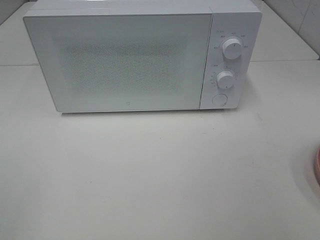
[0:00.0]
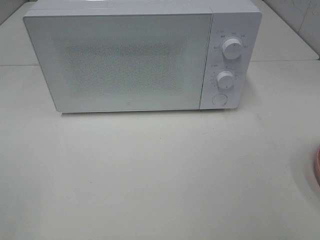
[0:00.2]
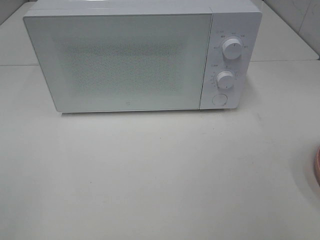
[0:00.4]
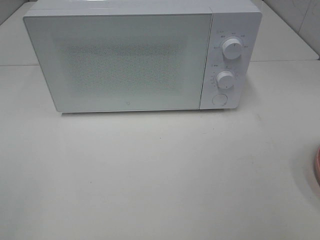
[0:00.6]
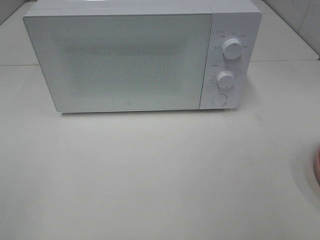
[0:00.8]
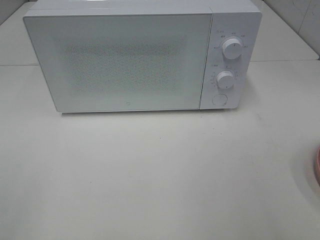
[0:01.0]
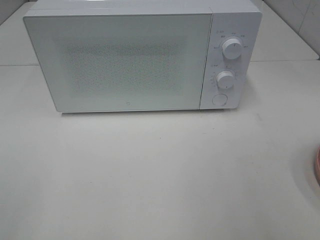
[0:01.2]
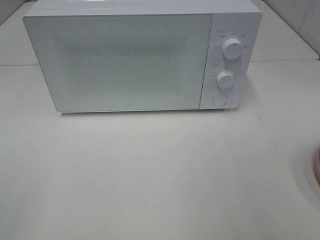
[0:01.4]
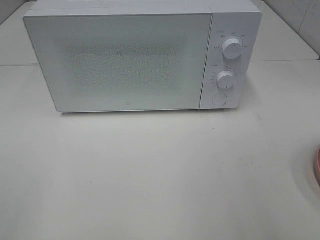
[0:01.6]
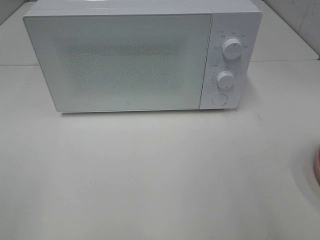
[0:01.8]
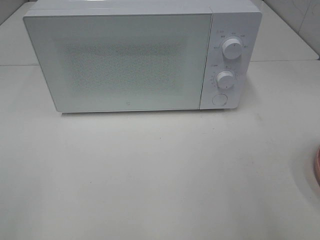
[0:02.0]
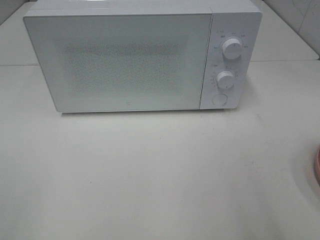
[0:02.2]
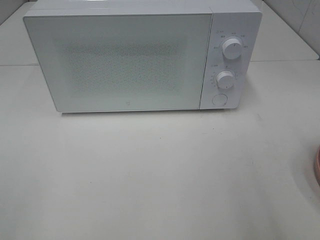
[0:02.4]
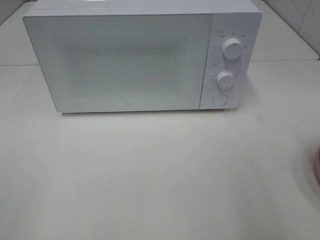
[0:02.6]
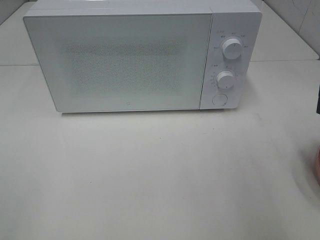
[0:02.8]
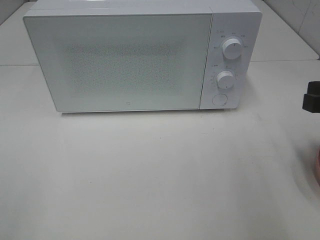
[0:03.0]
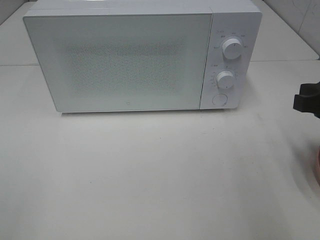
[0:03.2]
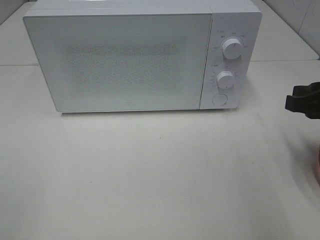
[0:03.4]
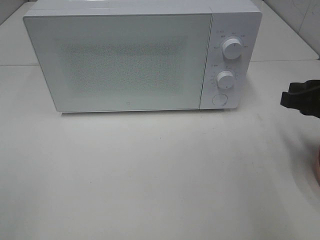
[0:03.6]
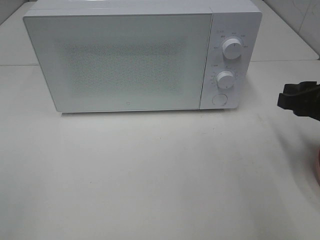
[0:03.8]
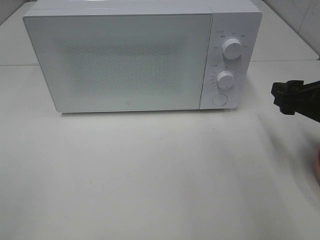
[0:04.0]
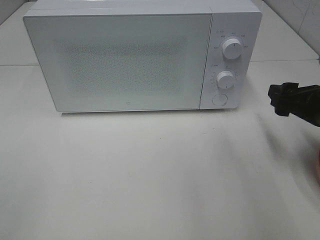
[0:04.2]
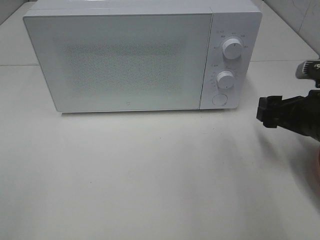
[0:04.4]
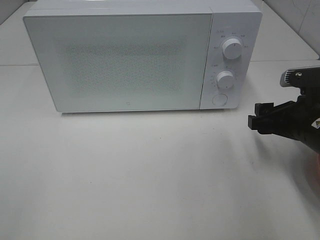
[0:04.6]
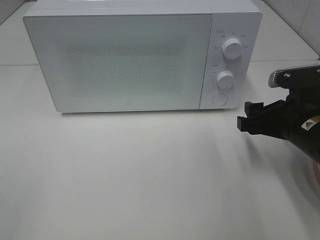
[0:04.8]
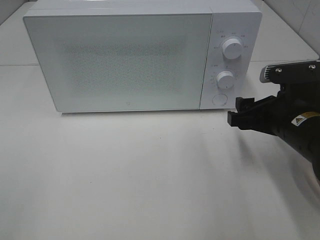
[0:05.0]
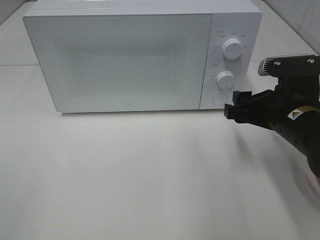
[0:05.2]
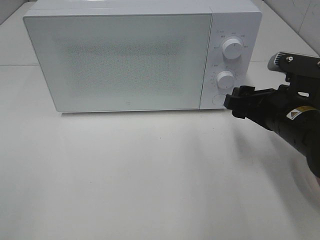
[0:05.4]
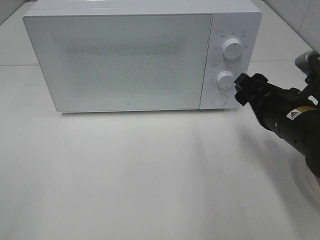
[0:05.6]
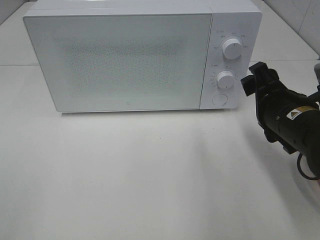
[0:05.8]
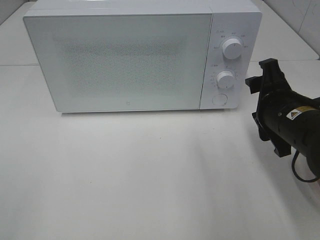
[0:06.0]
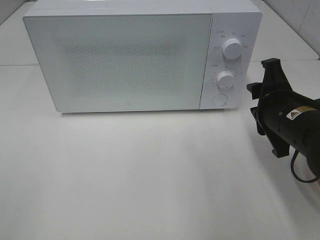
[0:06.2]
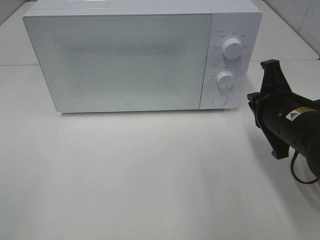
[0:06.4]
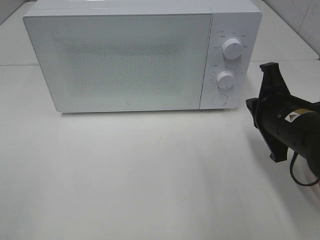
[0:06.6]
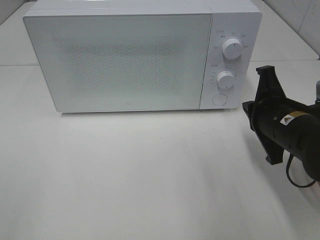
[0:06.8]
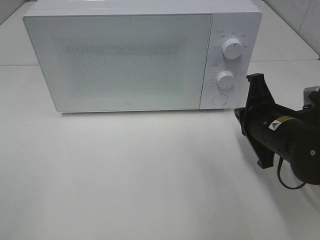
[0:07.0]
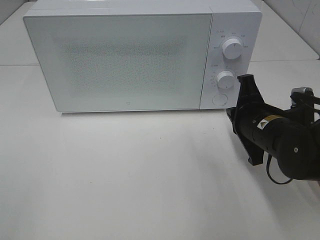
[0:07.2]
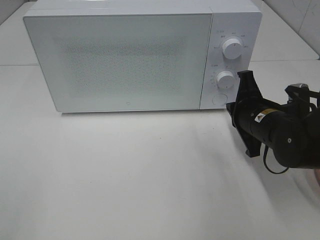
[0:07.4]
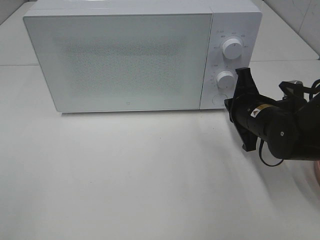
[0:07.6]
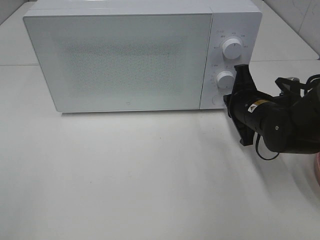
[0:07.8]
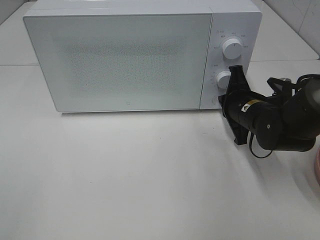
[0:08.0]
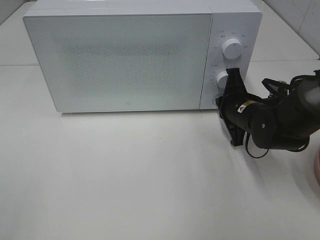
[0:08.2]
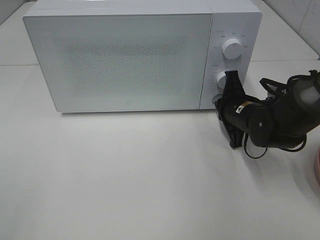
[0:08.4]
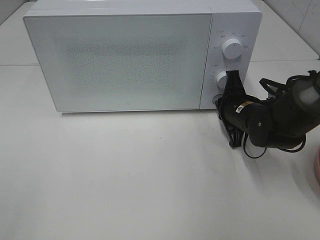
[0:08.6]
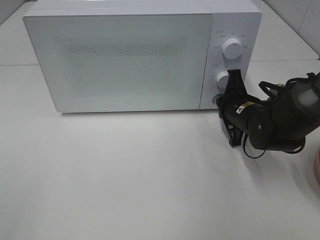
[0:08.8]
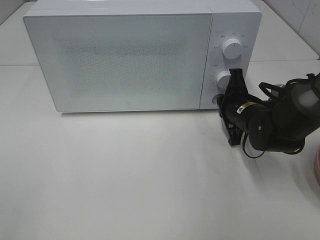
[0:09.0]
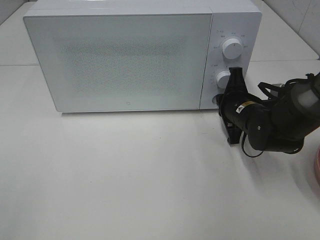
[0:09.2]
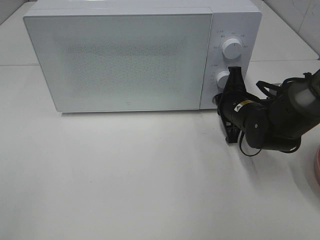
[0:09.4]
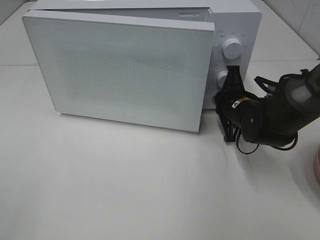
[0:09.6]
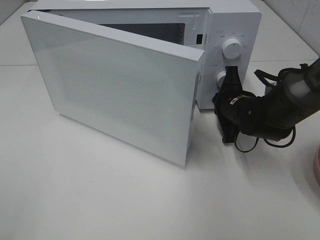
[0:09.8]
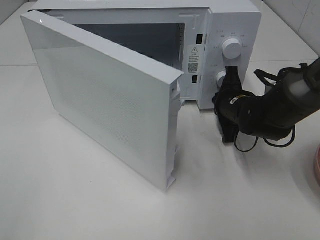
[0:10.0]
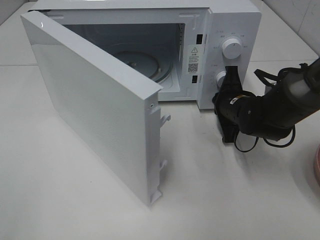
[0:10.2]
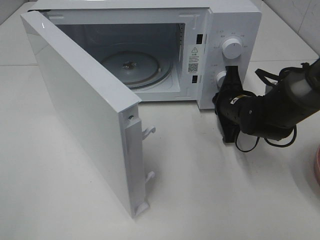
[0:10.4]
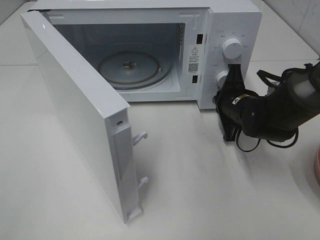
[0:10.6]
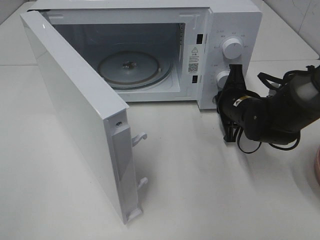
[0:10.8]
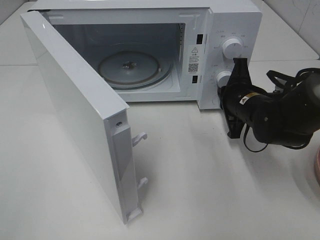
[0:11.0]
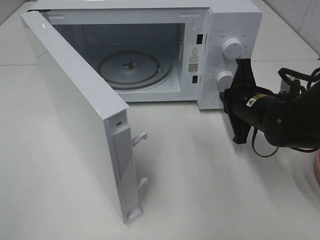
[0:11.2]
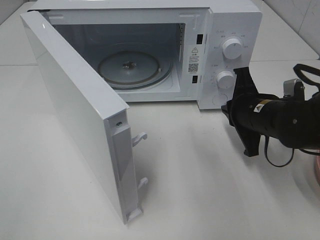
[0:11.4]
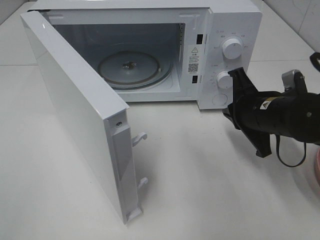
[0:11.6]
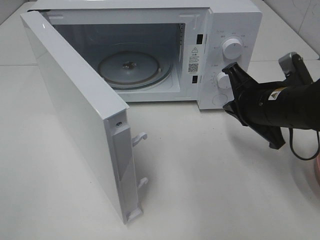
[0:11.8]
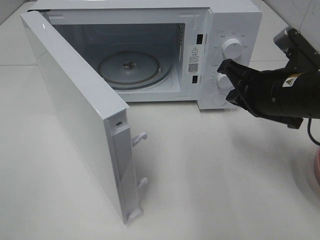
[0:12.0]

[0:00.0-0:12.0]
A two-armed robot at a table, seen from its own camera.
Task of the whole recording: Heat the burger.
Step, 0:00.0 to 0:10.8: Right hand: press the switch.
0:01.6 to 0:03.0: The right gripper travels forward and downward by approximately 20 cm.
0:03.0 to 0:04.4: The right gripper goes about 10 cm downward and forward, and opens its fingers.
0:04.4 to 0:06.0: The right gripper heads to the left, covering about 5 cm.
0:06.0 to 0:07.6: The right gripper travels forward and downward by about 10 cm, and closes its fingers.
0:07.6 to 0:09.0: The grippers move only a little.
0:10.4 to 0:12.0: The right gripper goes roughly 15 cm upward and backward.

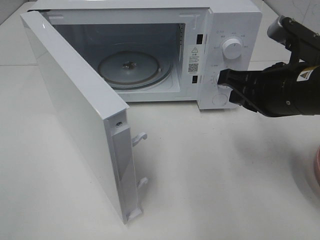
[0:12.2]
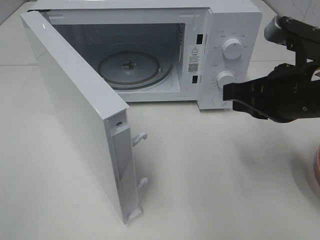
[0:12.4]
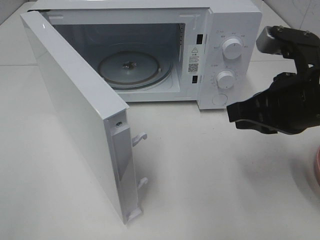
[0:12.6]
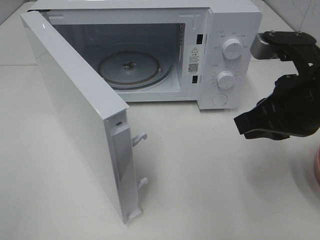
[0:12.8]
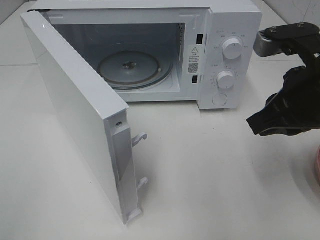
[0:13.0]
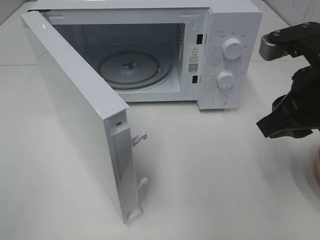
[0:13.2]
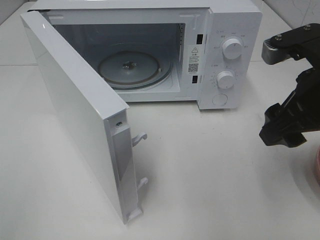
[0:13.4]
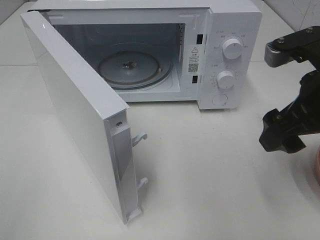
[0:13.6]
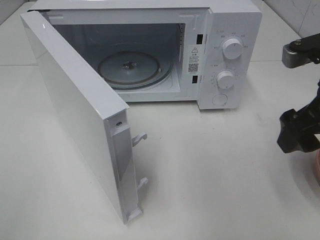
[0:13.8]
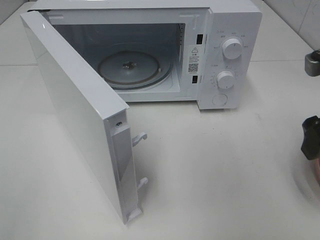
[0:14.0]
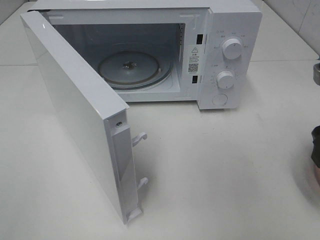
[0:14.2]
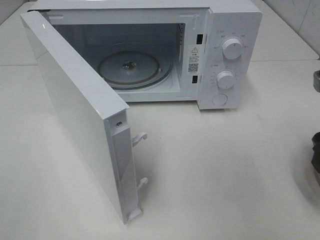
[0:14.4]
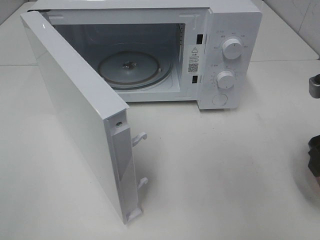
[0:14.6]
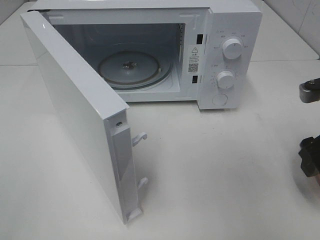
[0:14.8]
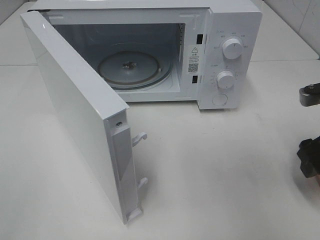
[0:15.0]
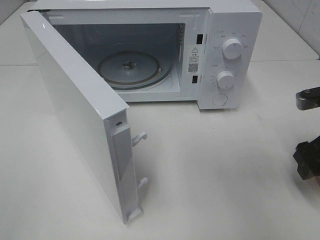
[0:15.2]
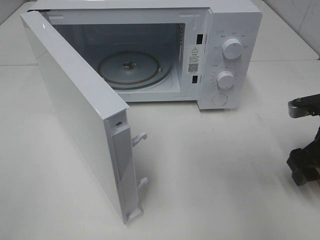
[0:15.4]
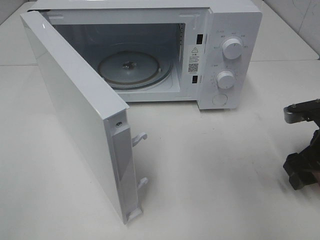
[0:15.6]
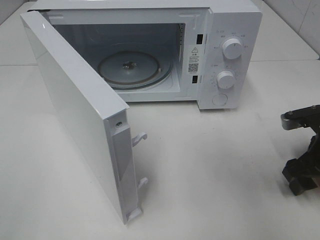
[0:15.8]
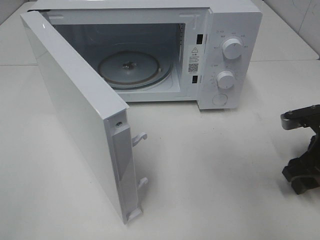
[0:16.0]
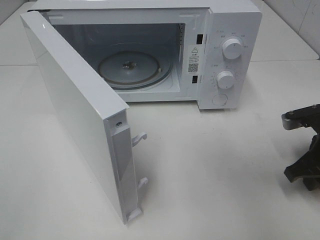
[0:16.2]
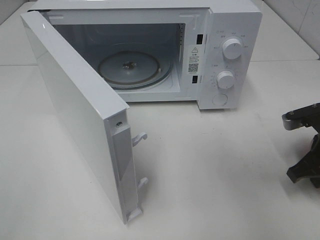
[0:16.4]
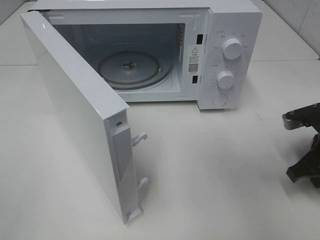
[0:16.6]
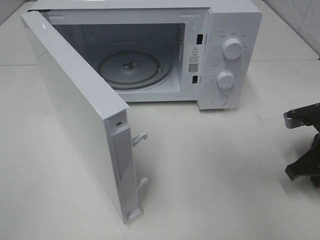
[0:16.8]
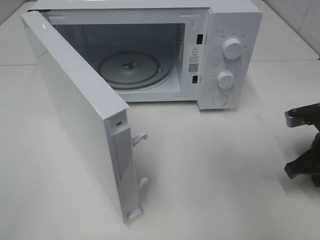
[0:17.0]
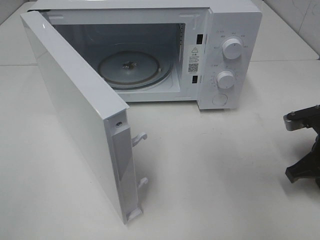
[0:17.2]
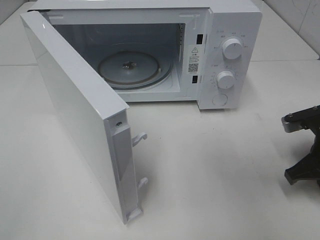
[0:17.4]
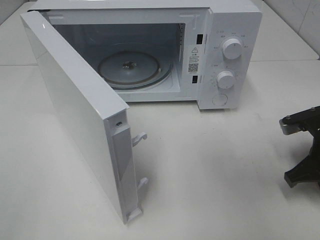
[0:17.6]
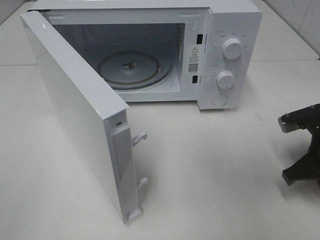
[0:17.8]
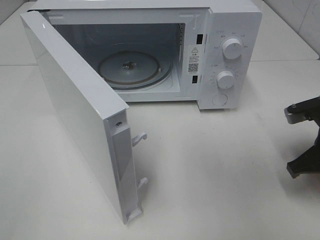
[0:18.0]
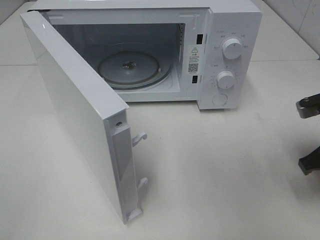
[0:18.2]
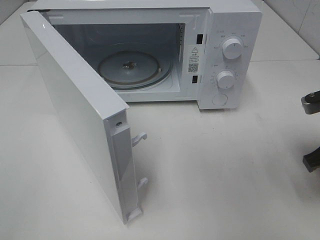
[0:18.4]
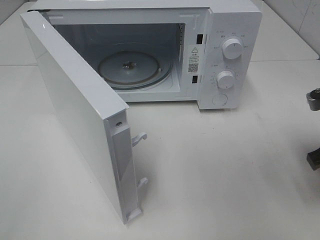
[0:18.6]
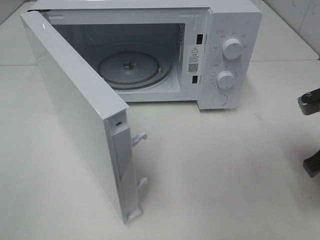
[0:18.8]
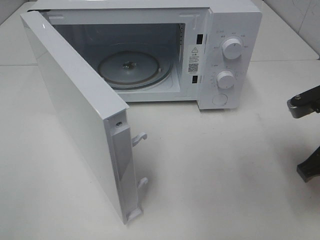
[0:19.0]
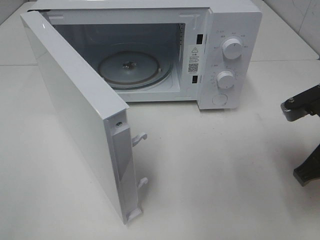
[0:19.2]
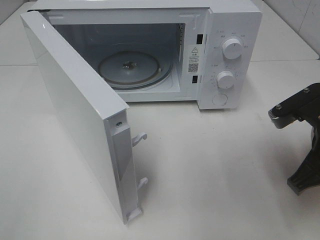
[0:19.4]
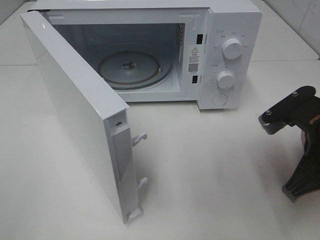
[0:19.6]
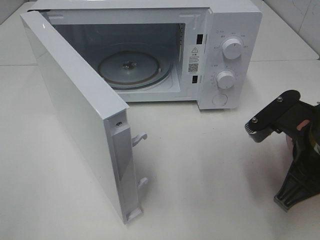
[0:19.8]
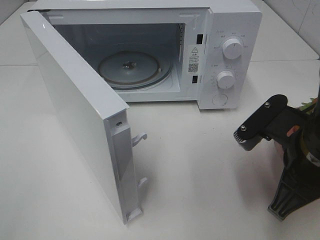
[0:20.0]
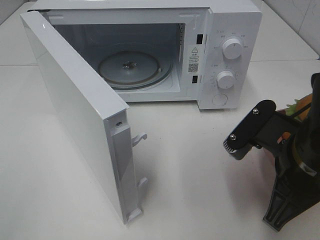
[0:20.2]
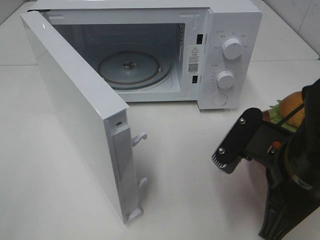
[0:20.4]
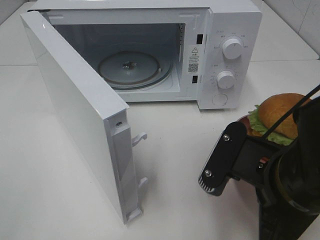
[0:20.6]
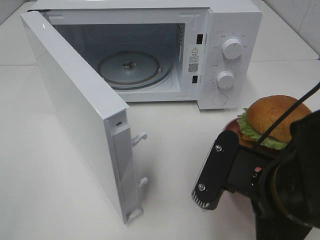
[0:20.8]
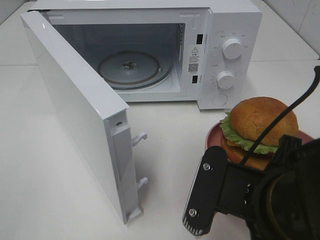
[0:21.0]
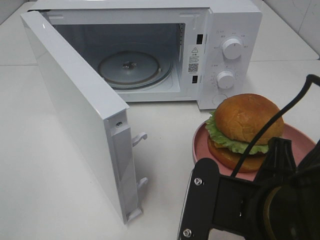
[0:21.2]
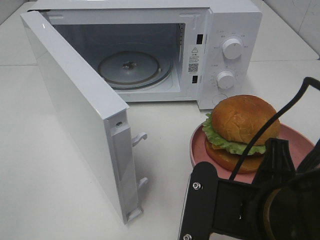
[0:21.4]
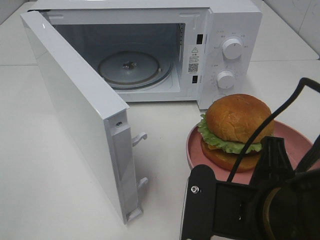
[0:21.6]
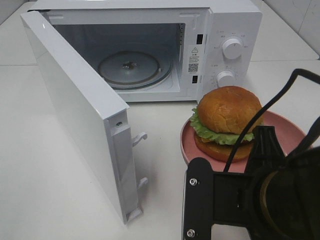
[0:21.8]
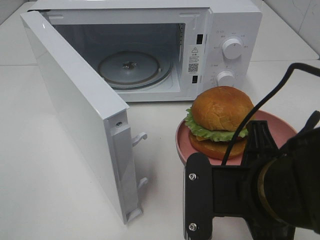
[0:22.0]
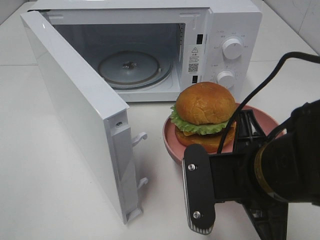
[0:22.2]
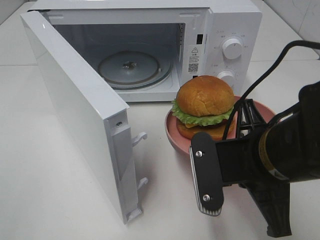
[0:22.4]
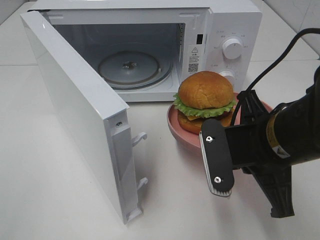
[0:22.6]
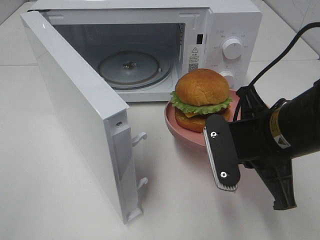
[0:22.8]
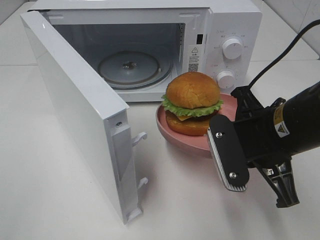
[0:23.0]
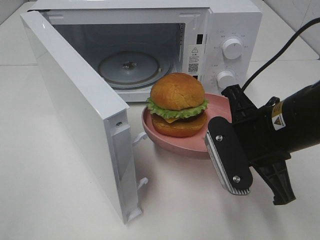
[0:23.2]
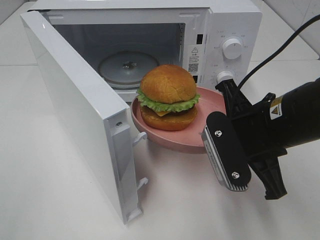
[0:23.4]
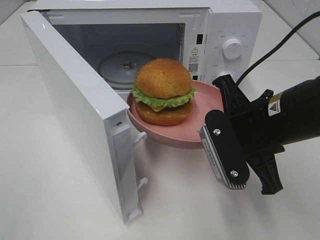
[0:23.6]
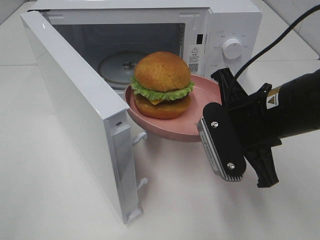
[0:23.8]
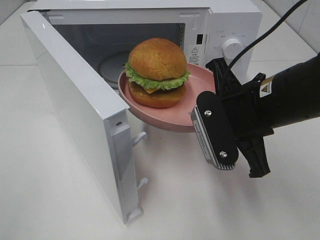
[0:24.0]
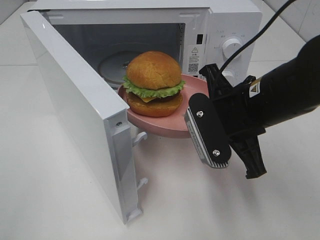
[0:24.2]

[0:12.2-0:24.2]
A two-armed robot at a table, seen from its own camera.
Task of the whole recording: Heat the burger.
Step, 0:12.2 to 0:16.4: Right hand: grab the plate with the hamburger.
0:12.2 to 0:13.8: The right gripper goes some 5 cm to the right, and opens up.
0:13.8 to 0:15.2: The right gripper shifts approximately 10 cm downward and to the right.
0:15.2 to 0:16.6: The right gripper closes.
0:16.6 to 0:18.2: The right gripper shifts by about 5 cm.
0:18.2 to 0:19.8: The right gripper is displaced to the left by roughly 10 cm.
0:19.8 to 0:21.2: The right gripper heads backward and to the left, covering some 10 cm.
0:21.2 to 0:22.6: The right gripper travels forward by roughly 10 cm.
0:22.6 to 0:24.2: The right gripper shifts by about 5 cm.
